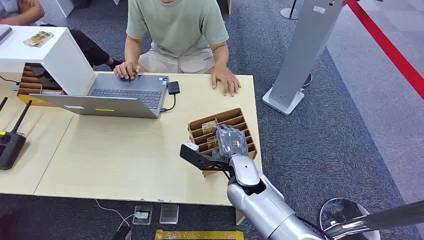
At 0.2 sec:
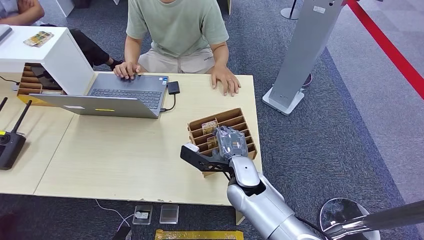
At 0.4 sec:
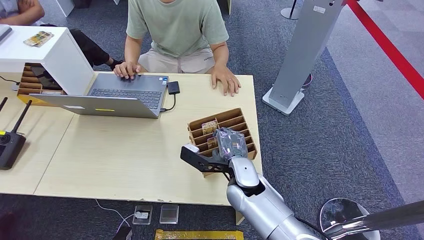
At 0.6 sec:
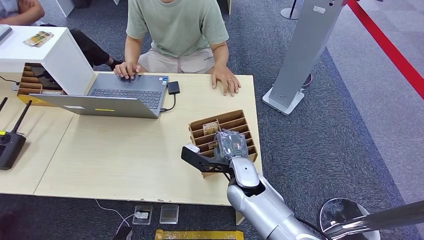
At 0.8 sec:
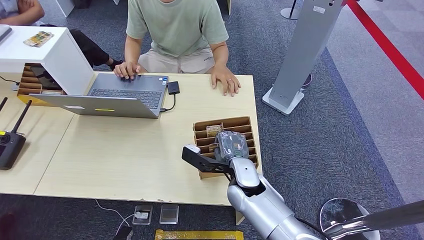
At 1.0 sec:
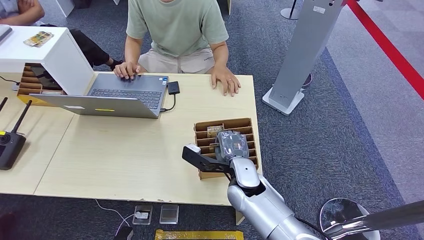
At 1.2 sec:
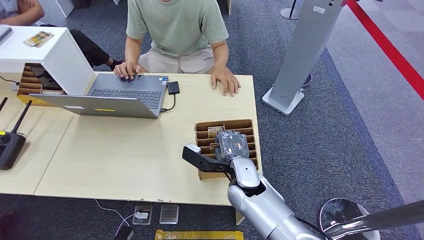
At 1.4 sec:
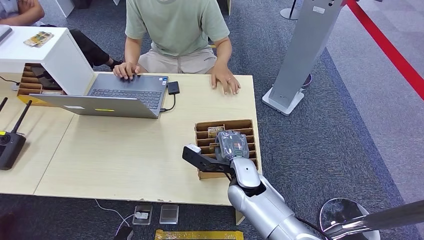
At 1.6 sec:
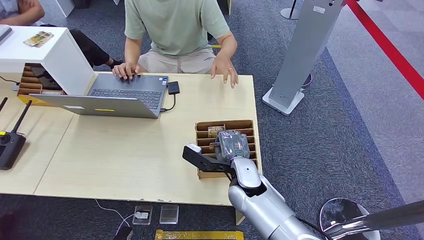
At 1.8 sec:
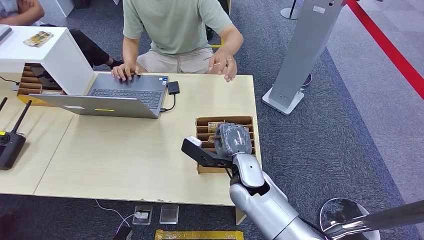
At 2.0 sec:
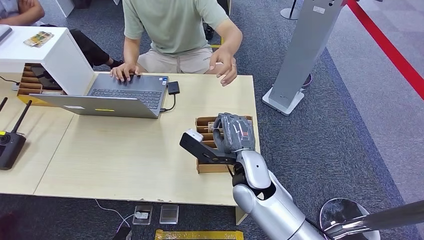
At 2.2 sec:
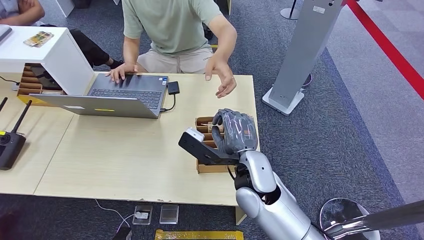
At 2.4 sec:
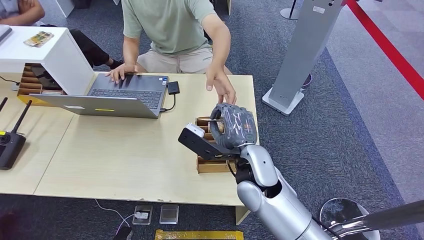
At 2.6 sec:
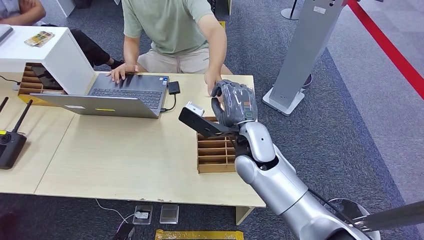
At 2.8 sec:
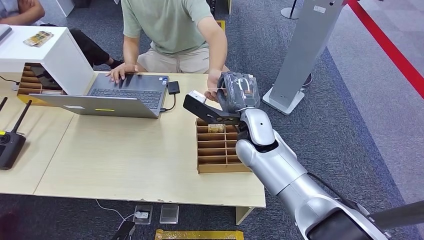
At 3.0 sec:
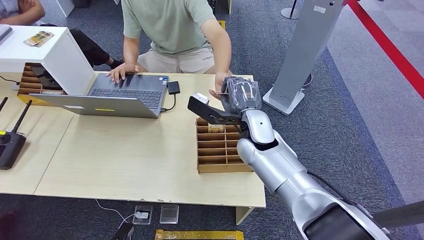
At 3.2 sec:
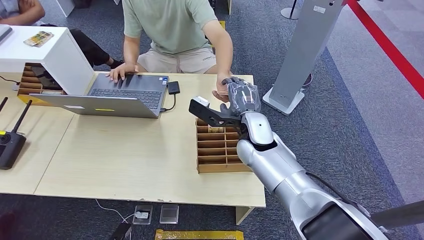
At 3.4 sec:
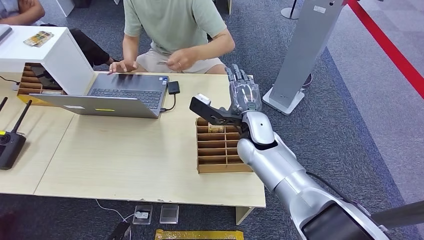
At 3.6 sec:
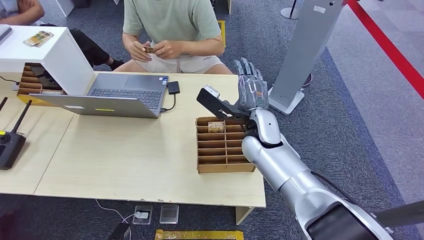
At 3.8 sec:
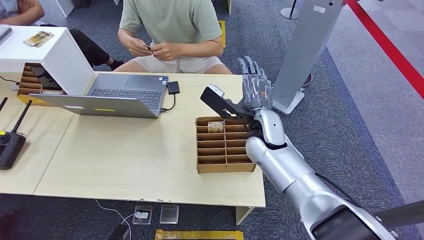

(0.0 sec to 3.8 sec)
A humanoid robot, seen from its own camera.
Step, 0.0 sec - 2.0 sec: Pick up the room card from the card holder.
Step, 2.8 sec - 3.8 sec: Hand the room card to the target.
1.2 sec - 2.6 sec: The right hand is displaced upward and forward by approximately 15 cm.
2.6 sec - 3.8 sec: The right hand shifts roughly 5 cm to the right.

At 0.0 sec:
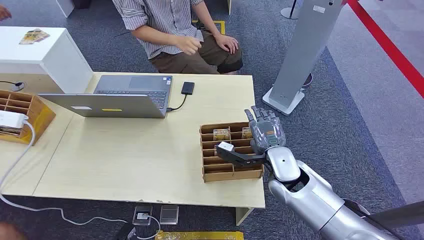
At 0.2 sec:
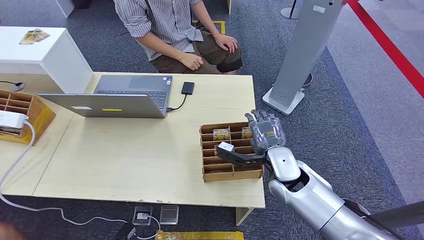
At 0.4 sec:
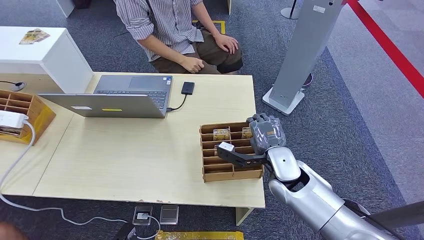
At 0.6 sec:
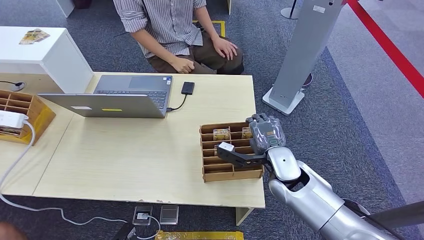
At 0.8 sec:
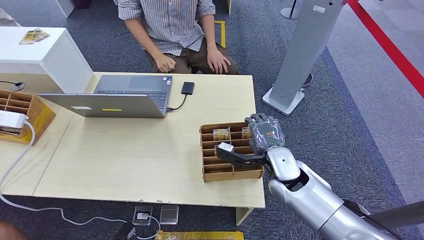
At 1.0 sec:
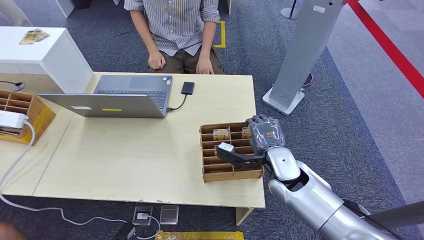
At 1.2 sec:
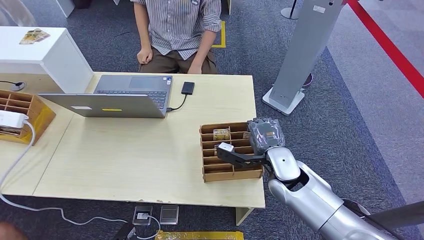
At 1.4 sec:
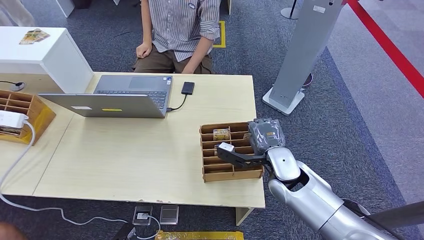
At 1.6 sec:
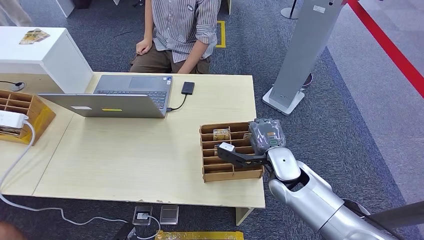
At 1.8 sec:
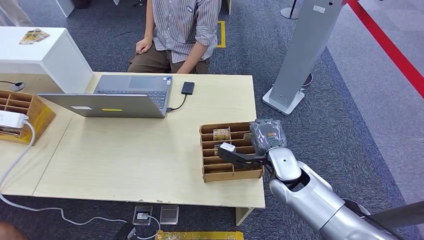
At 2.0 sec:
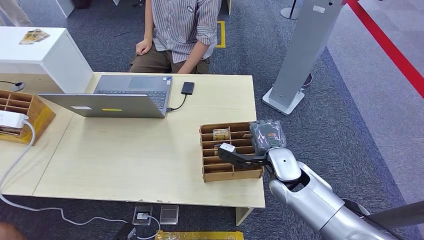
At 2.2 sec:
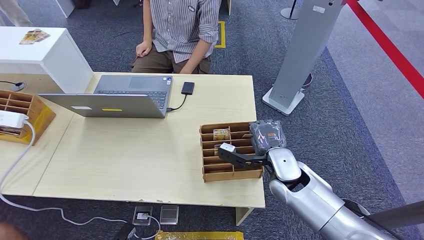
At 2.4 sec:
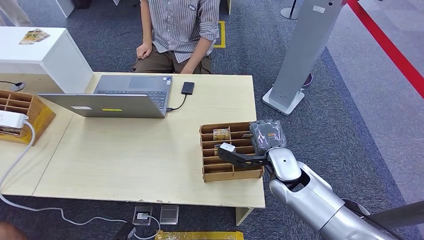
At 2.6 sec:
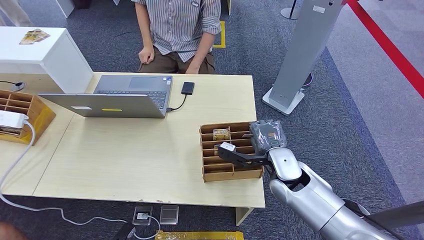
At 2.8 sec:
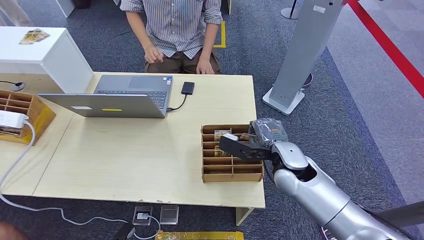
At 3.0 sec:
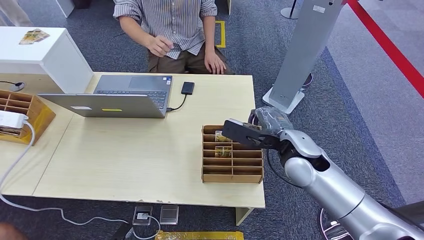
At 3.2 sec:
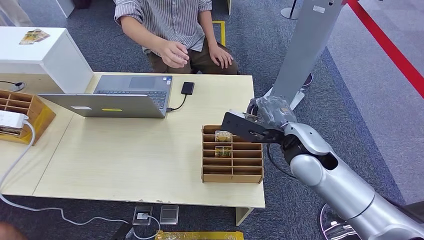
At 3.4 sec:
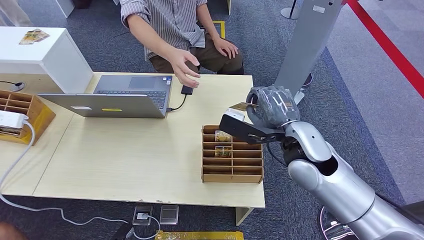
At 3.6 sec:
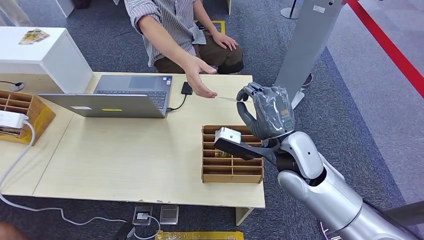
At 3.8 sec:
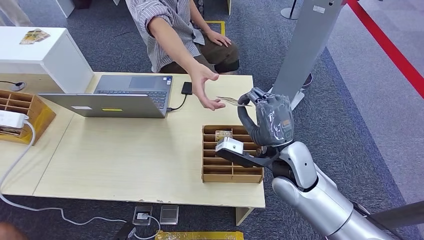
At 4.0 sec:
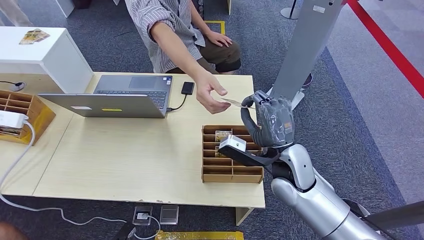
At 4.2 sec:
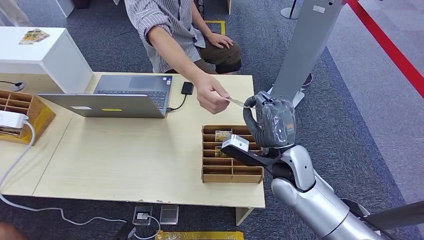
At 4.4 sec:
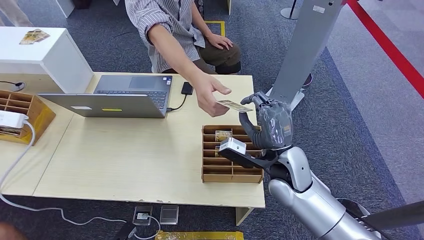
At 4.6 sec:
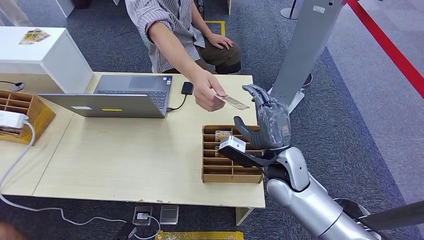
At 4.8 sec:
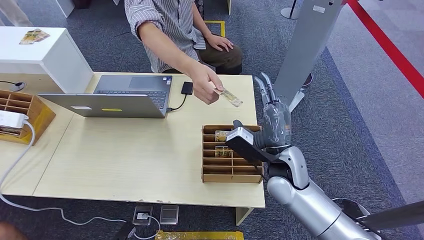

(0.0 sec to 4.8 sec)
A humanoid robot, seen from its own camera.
Step, 0.0 sec - 3.0 sec: Pick up the room card from the card holder.
Step, 3.8 sec - 4.8 sec: Hand the room card to the target.
1.6 sec - 3.2 sec: The right hand goes about 15 cm upward.
3.2 sec - 4.8 sec: The right hand goes about 10 cm downward.
